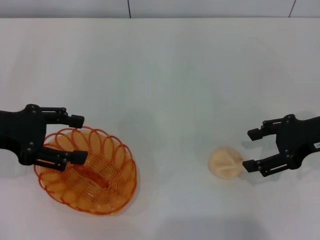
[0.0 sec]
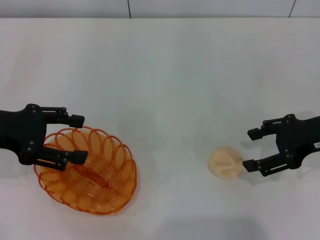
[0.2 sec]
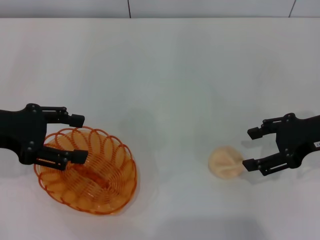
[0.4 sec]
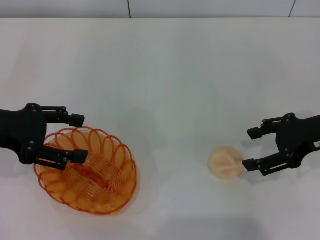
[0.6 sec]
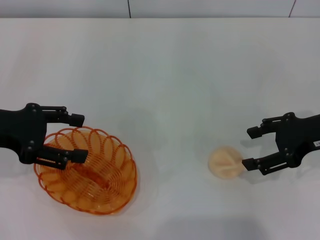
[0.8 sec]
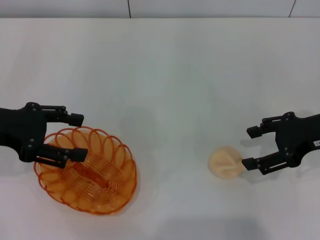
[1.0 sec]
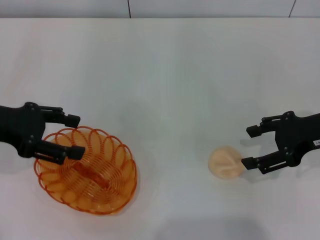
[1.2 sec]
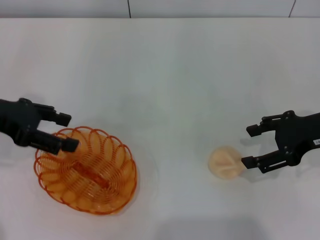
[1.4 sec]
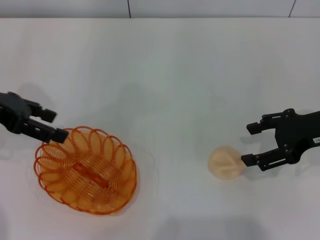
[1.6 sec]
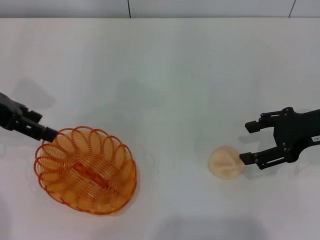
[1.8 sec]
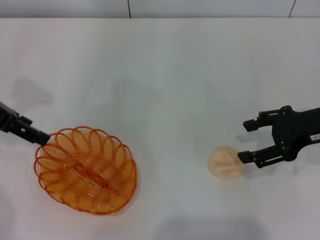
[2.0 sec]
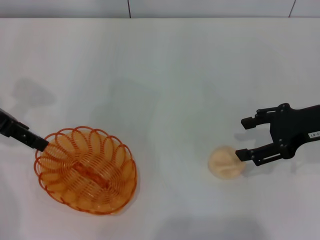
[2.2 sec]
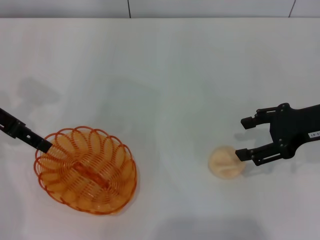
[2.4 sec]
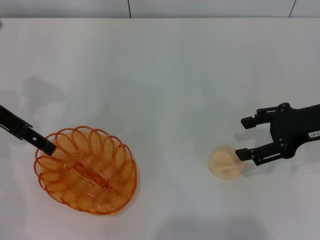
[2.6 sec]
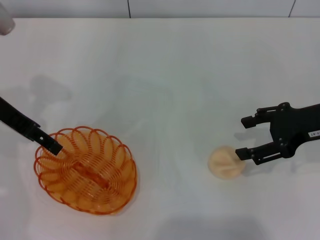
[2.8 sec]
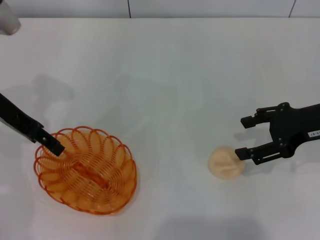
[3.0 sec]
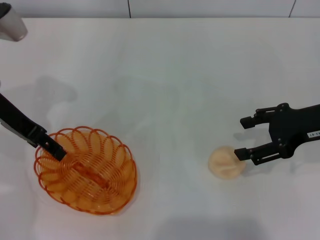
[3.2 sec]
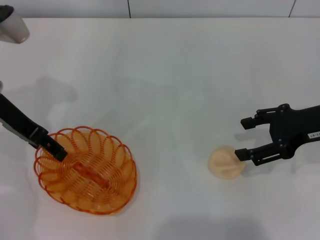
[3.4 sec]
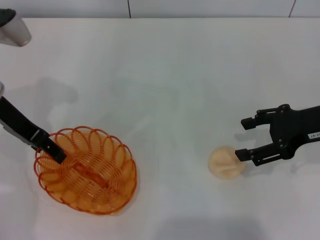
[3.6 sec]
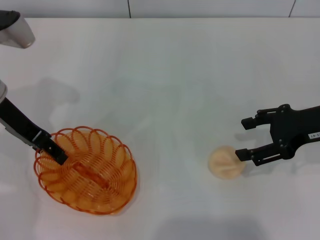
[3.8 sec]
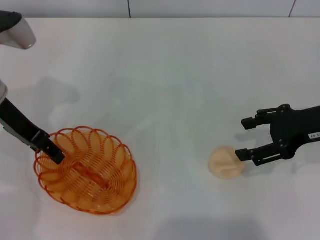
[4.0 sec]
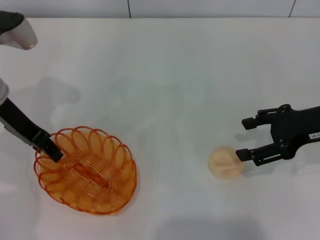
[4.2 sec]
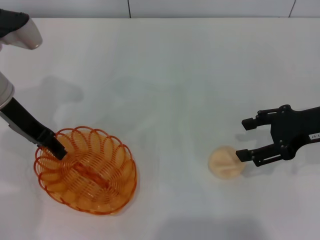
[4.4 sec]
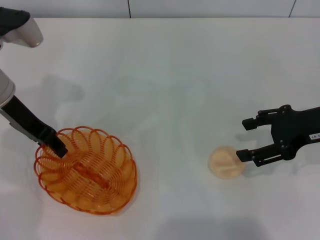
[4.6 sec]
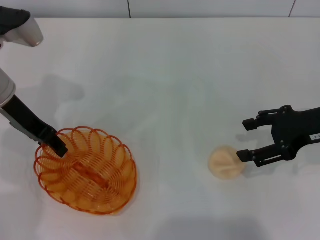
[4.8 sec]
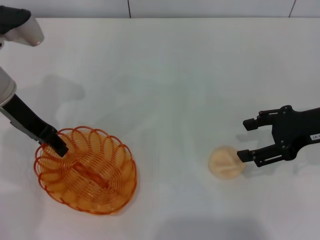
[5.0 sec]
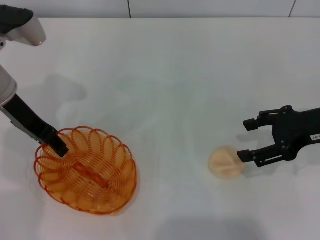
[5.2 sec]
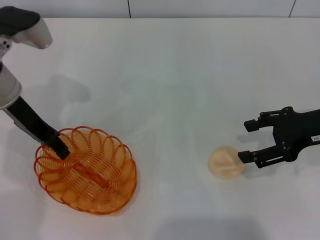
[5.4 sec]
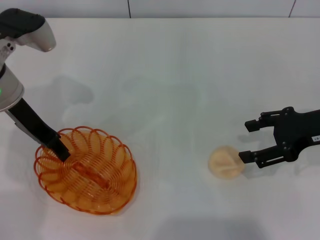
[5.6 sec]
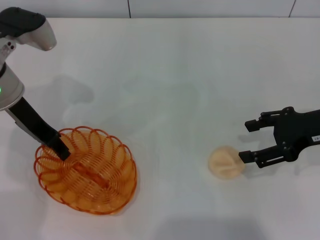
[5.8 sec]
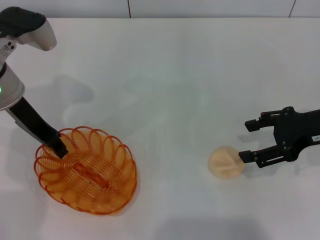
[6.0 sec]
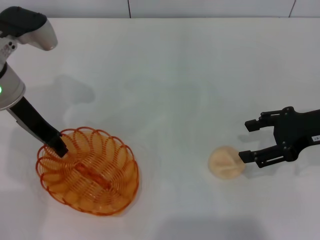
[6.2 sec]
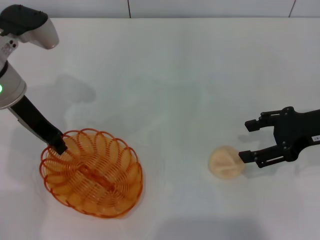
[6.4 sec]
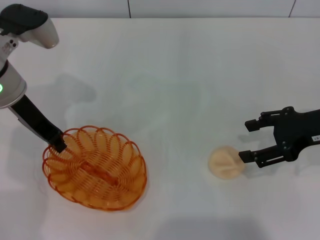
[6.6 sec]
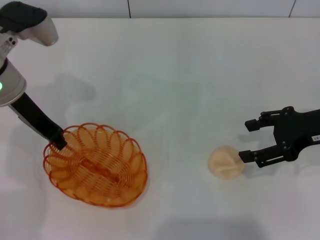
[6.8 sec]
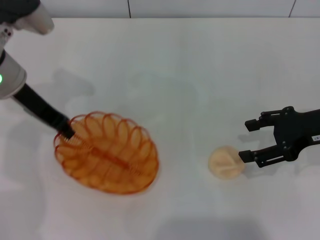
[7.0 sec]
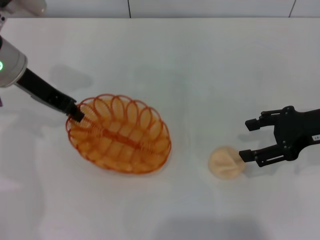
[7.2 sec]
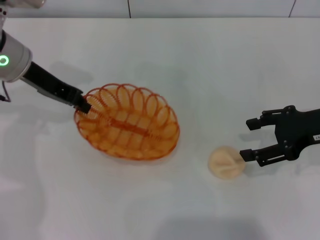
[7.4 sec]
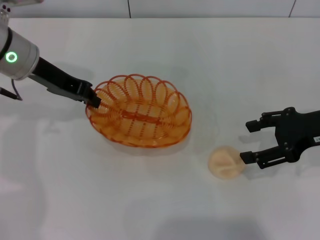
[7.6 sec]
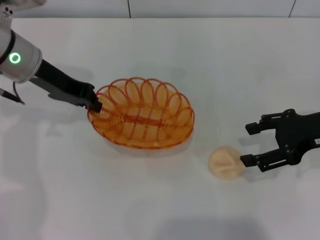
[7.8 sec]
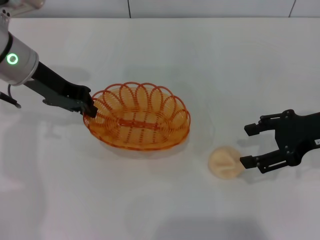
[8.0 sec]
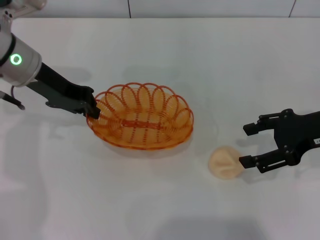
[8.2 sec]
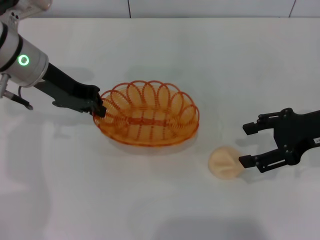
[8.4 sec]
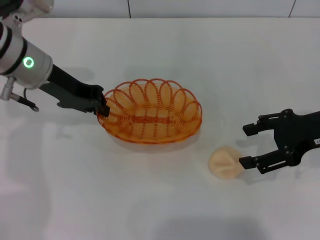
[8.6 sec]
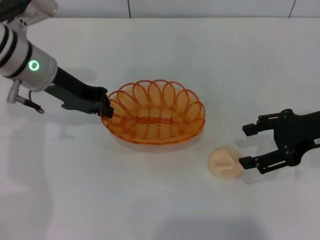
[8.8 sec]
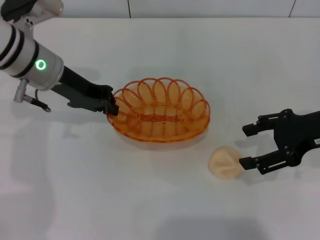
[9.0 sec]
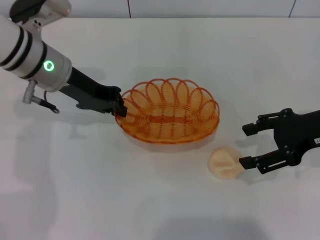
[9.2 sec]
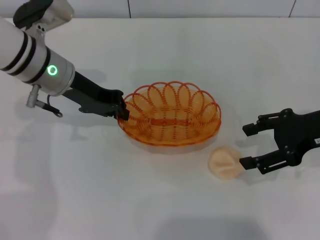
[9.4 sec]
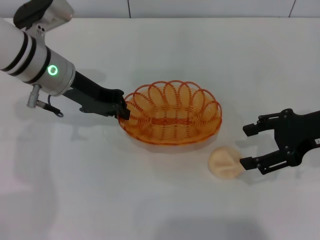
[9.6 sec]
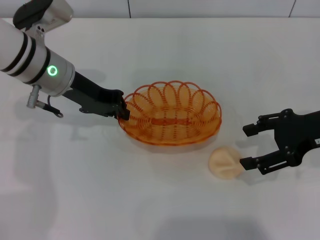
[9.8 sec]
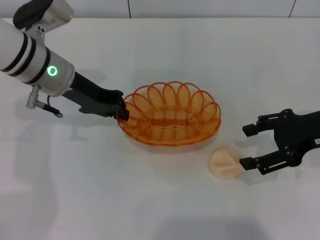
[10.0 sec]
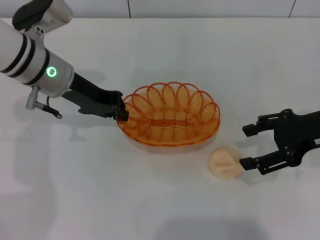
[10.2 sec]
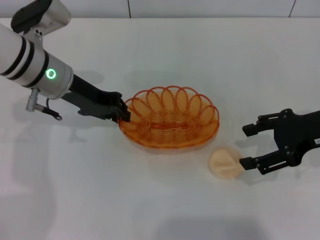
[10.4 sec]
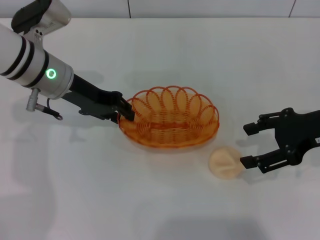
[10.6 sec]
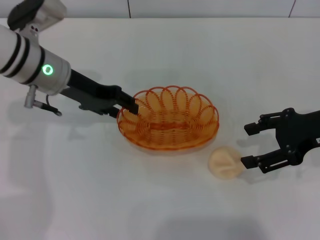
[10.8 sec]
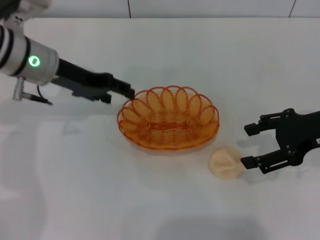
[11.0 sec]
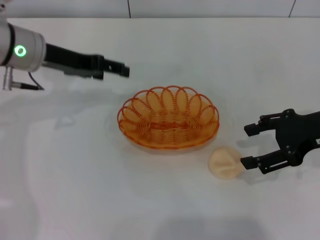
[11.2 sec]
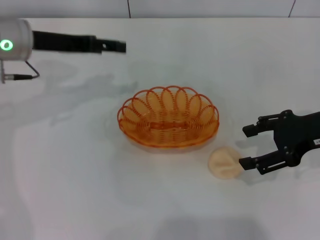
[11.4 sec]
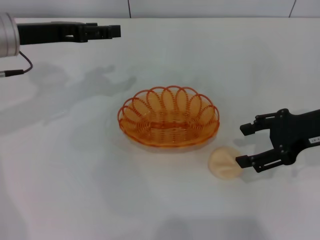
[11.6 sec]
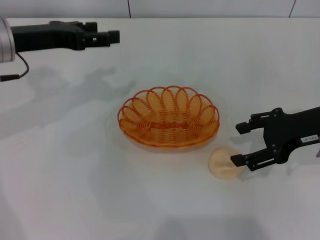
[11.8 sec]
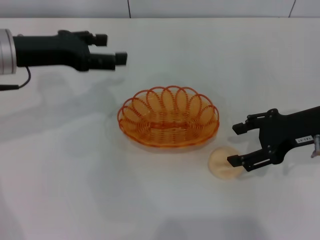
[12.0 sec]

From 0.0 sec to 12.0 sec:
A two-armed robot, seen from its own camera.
Step, from 0.0 sec to 7.0 sec: Pick up the basket with the left gripper.
Step, from 7.2 sec to 11.0 sec: Place the basket in the center of view with the left gripper.
From 0.0 sec to 1.6 sec: The left gripper shifts by about 5 cm.
From 1.6 sec to 3.0 sec: The left gripper changes place by about 5 cm.
From 3.0 sec to 4.4 sec: The left gripper closes up.
From 4.4 sec to 6.0 sec: There are only small adjustments of the grippers.
From 6.0 sec to 7.6 sec: The left gripper closes its fingers.
From 7.6 sec to 10.4 sec: The grippers move only a little.
From 10.4 sec to 12.0 sec: The left gripper is displaced to the left by approximately 5 cm, and opens up.

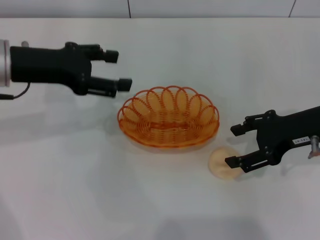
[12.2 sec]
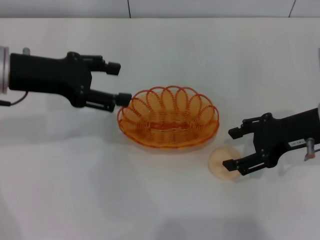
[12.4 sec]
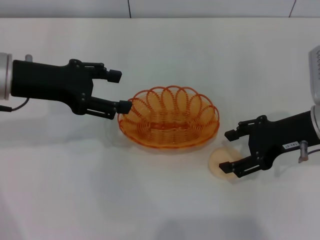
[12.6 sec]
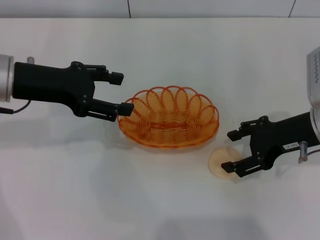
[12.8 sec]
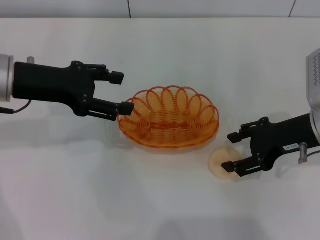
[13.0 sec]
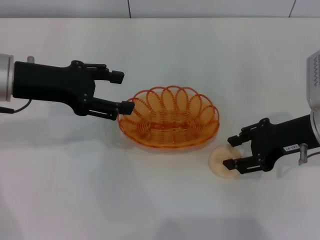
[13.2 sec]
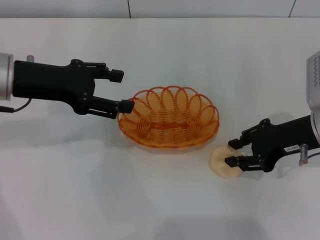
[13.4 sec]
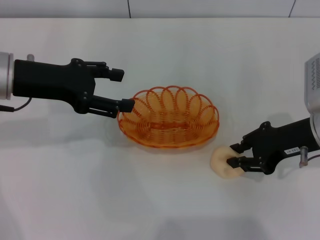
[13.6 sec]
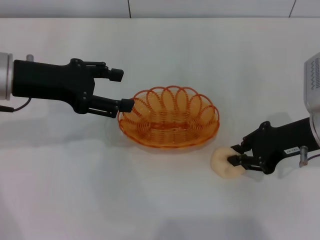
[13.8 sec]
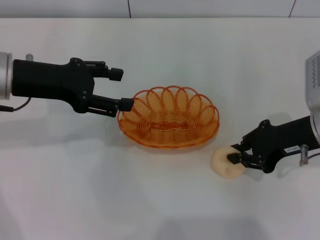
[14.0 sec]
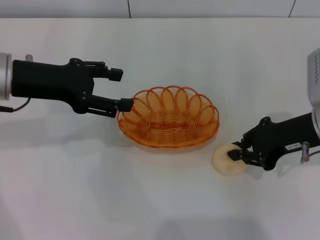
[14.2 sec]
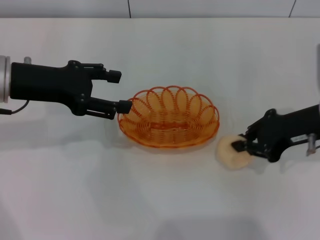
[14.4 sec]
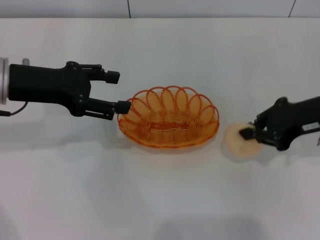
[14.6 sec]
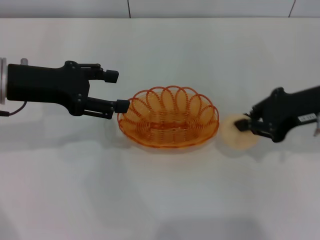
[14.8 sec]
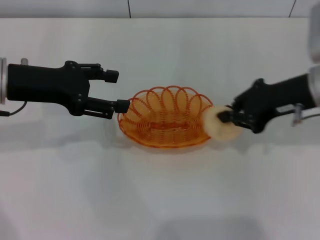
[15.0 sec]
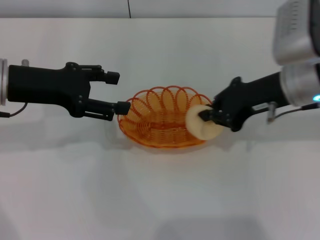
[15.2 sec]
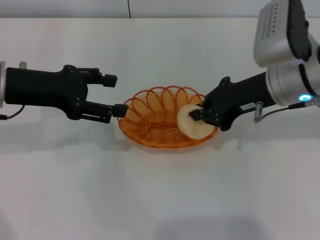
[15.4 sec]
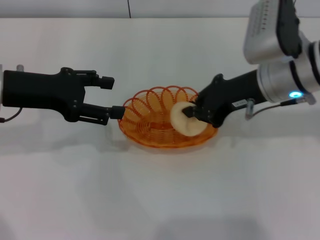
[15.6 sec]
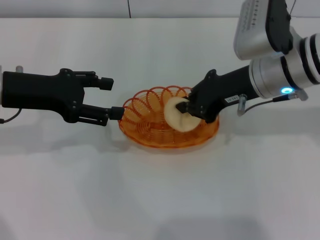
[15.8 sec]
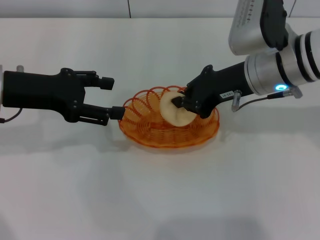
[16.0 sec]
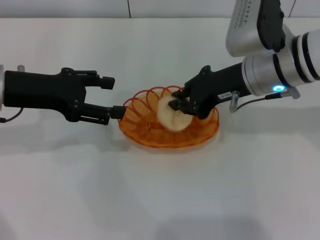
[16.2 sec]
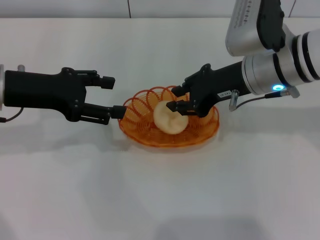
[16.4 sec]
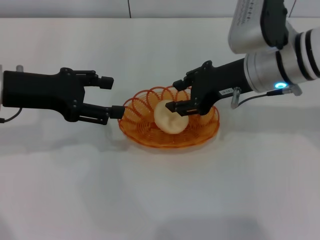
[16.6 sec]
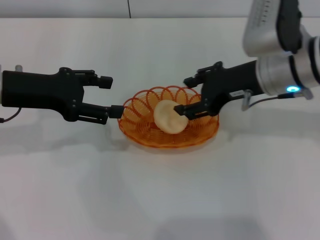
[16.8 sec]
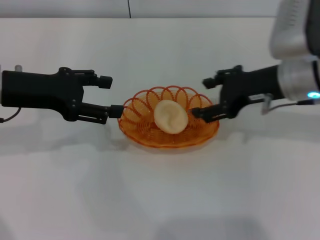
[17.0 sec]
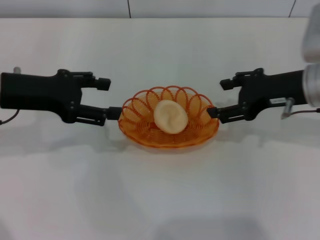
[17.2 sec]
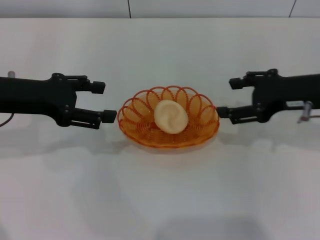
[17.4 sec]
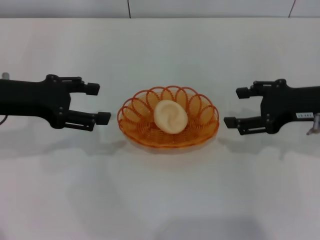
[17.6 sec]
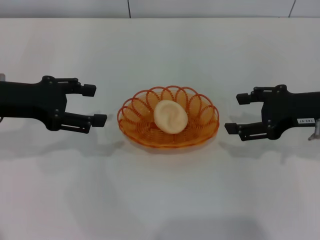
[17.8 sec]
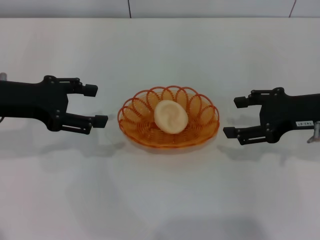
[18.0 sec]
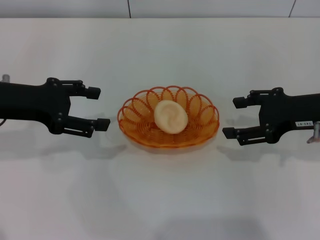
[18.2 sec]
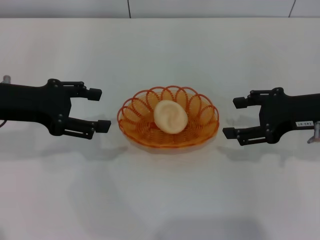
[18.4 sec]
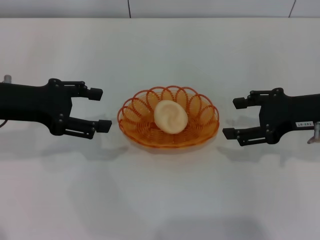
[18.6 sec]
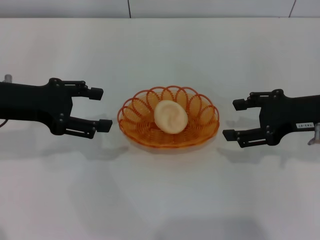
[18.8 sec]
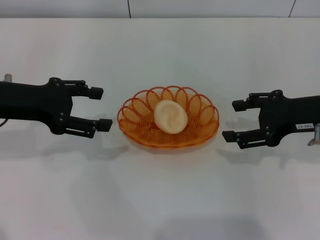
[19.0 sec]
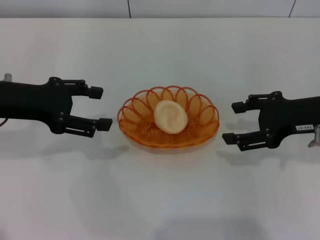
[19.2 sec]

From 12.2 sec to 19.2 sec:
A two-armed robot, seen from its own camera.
Step, from 12.2 sec to 14.8 sec: Pick up the egg yolk pastry with the right gripper.
Step, from 15.0 sec to 17.0 sec: Place the egg yolk pastry into the basket with the right gripper.
From 12.2 sec to 13.6 sec: The right gripper closes its fingers.
From 13.6 sec to 15.0 sec: The right gripper shifts approximately 5 cm upward, and closes its fingers.
From 15.0 sec to 16.4 sec: The right gripper shifts some 10 cm to the left.
From 16.4 sec to 17.8 sec: The right gripper travels to the right and backward by some 15 cm, and opens its fingers.
From 17.8 sec to 19.2 sec: Both grippers stay put.
